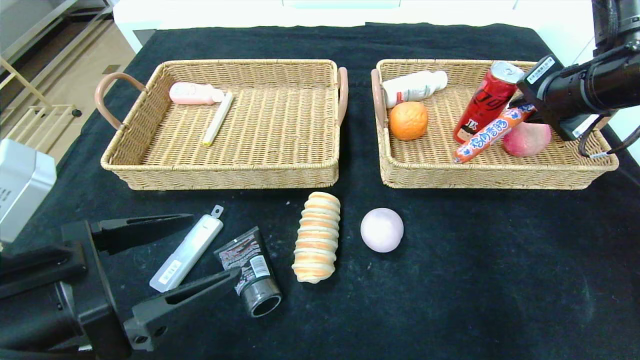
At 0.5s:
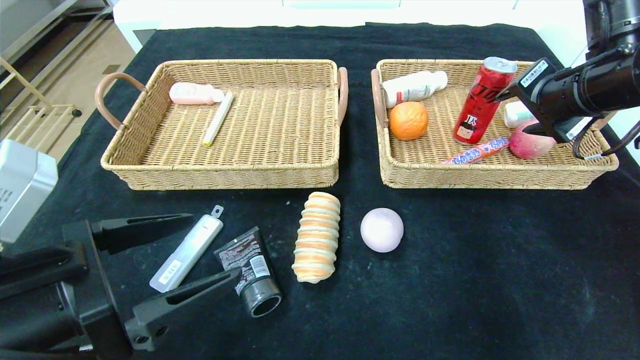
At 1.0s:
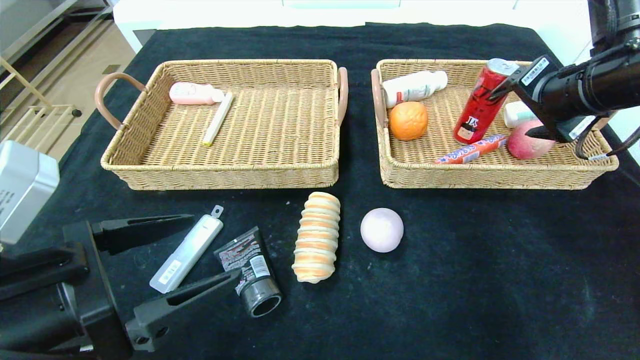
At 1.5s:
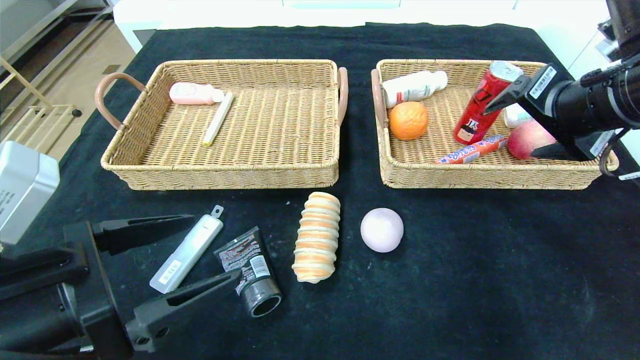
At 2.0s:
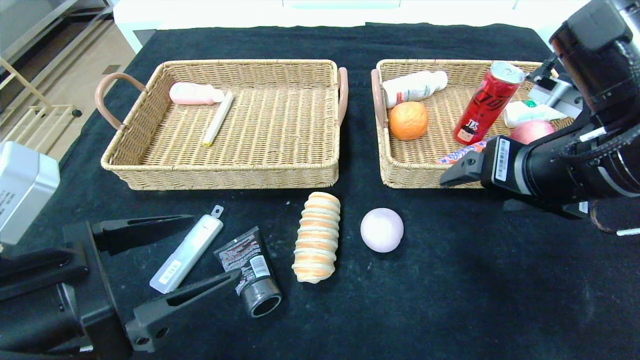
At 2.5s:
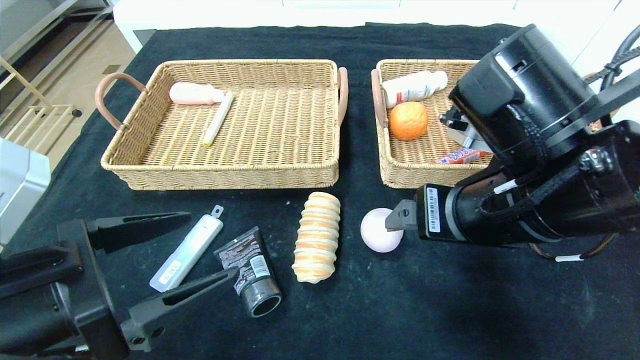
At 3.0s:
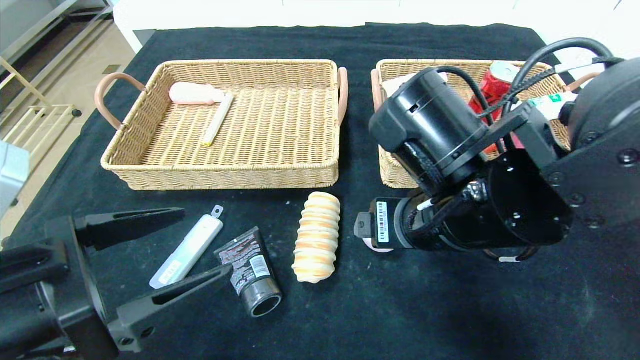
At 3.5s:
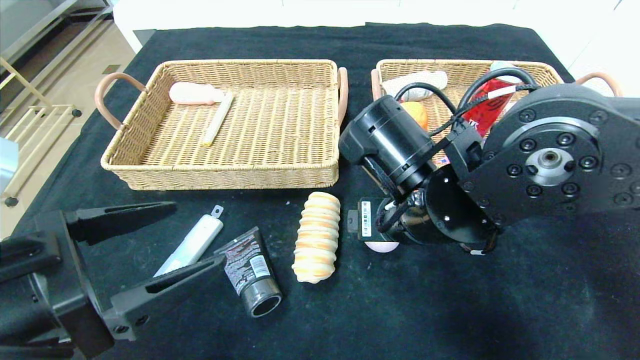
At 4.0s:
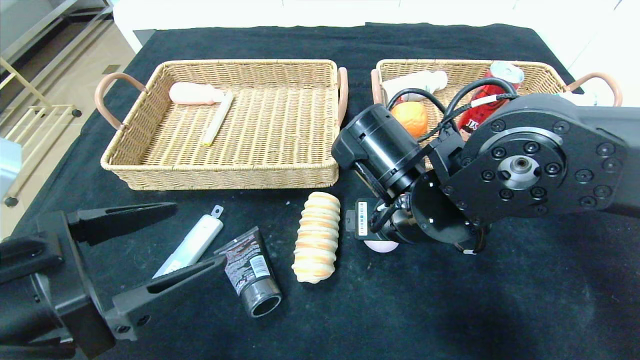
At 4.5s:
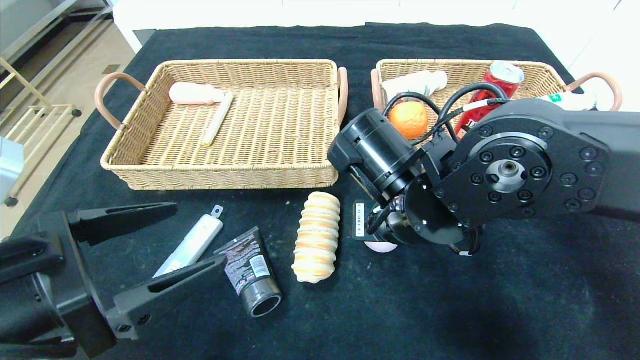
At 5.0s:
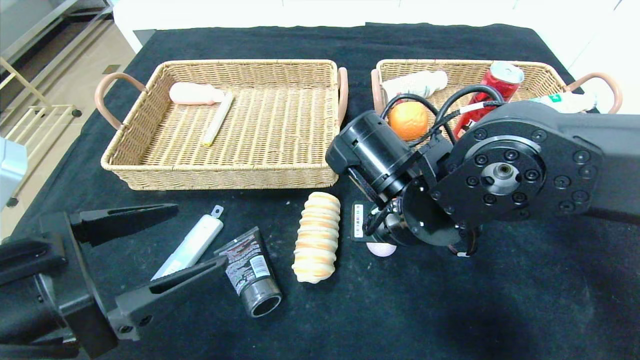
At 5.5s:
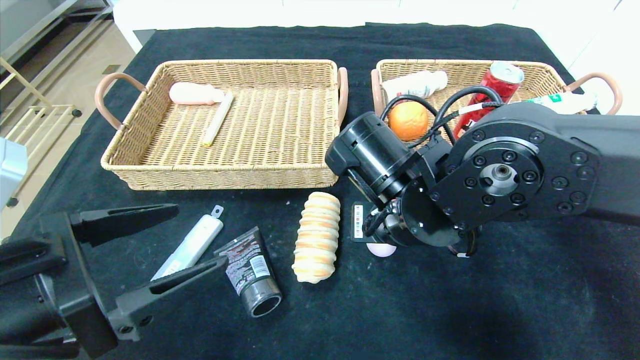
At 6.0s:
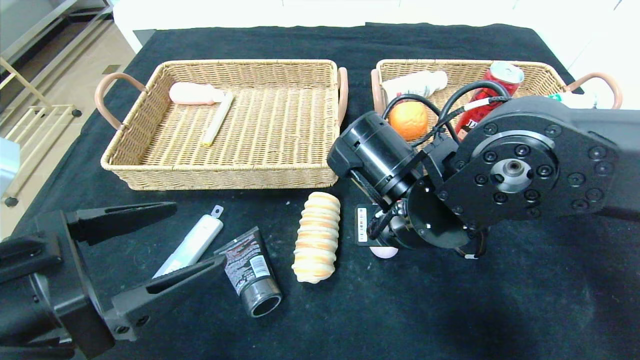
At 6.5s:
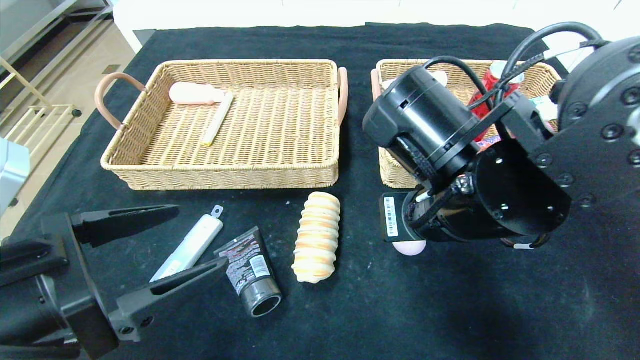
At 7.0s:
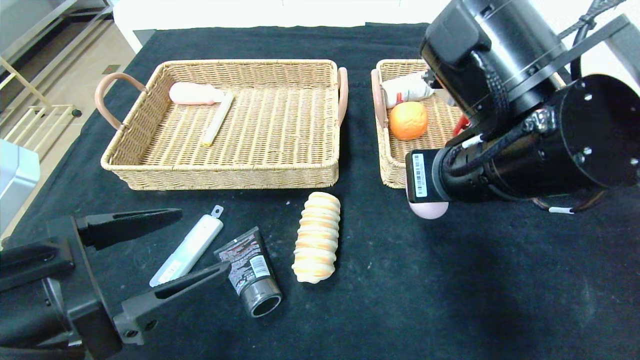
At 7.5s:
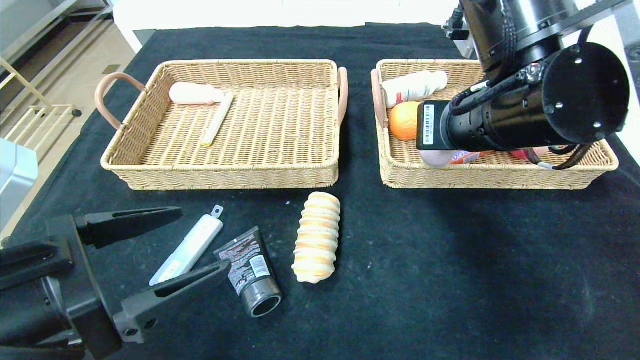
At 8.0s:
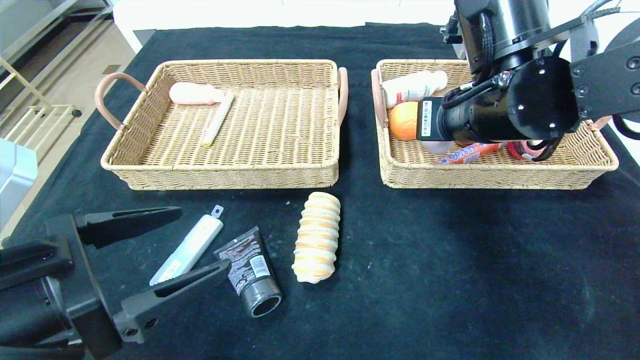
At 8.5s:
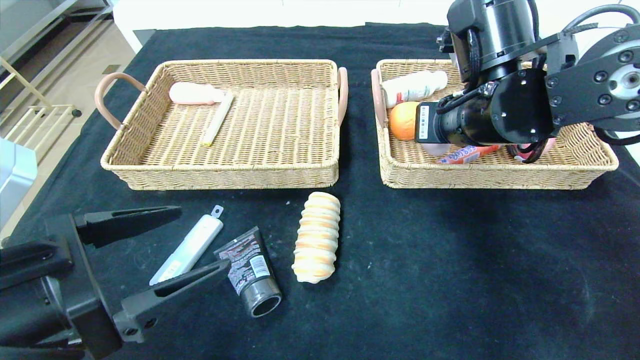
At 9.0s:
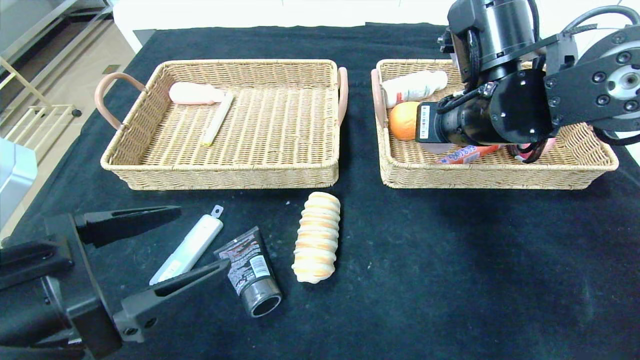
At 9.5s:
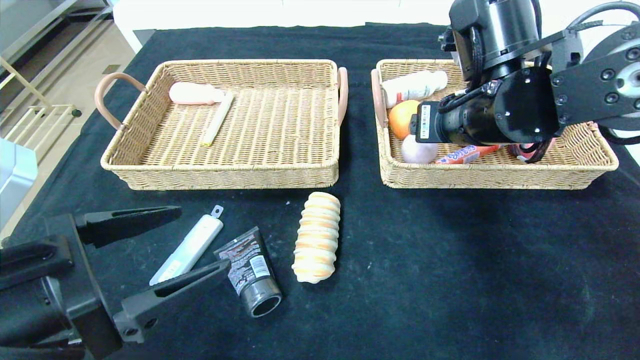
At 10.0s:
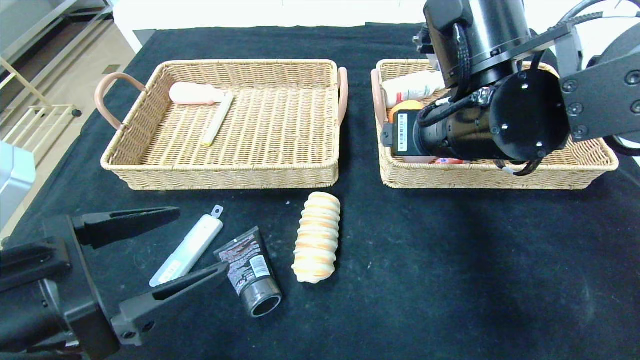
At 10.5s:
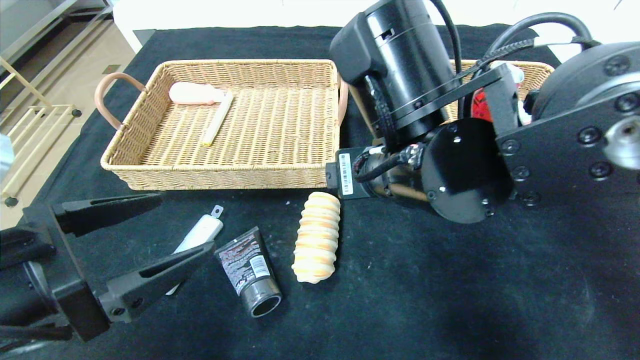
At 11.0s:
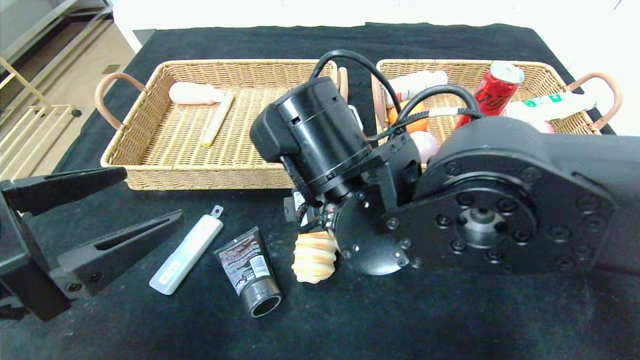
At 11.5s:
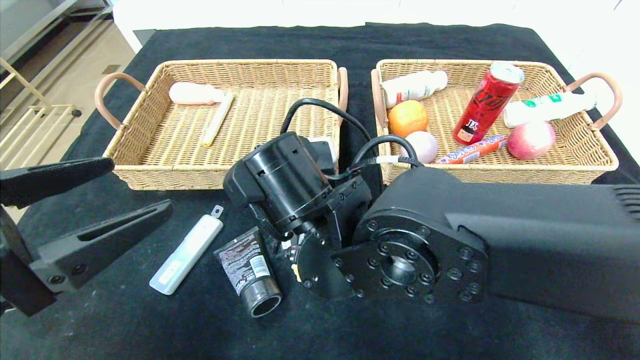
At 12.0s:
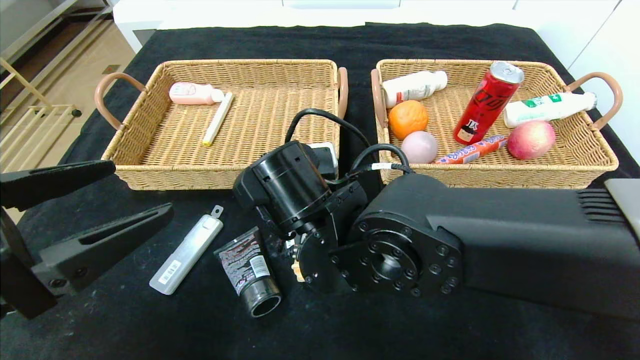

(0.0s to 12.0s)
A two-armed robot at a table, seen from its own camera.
Step, 1.0s - 9.5s: Grasp the peach and put it in the right basket.
0.0s - 2.0s: The right gripper shifts roughly 15 cm backward and to the left, and opens up.
2.0s - 4.0s: The right gripper is displaced to the left and downward by some 15 cm.
4.0s - 6.0s: The right gripper closes.
6.0s - 8.0s: The right gripper moves upward and to the right, about 10 cm.
8.0s - 10.0s: The right gripper opens up.
10.0s - 12.0s: The right gripper moves to the left and downward, roughly 15 cm.

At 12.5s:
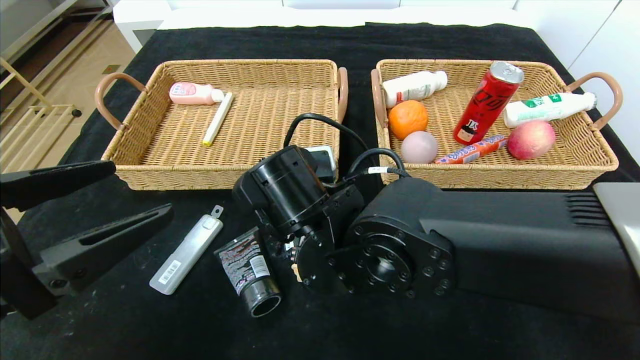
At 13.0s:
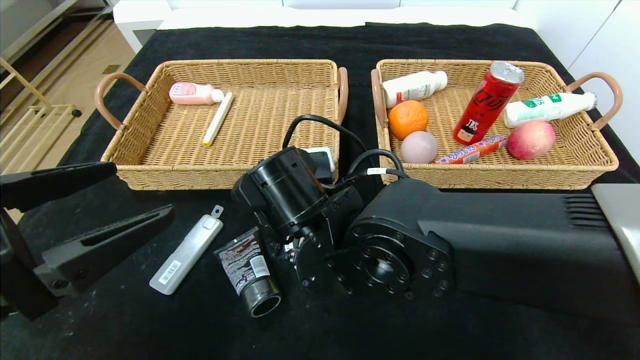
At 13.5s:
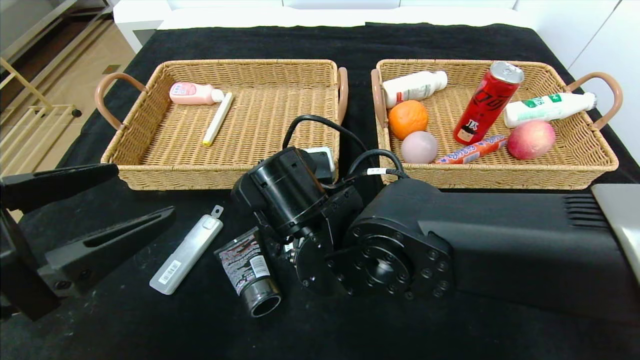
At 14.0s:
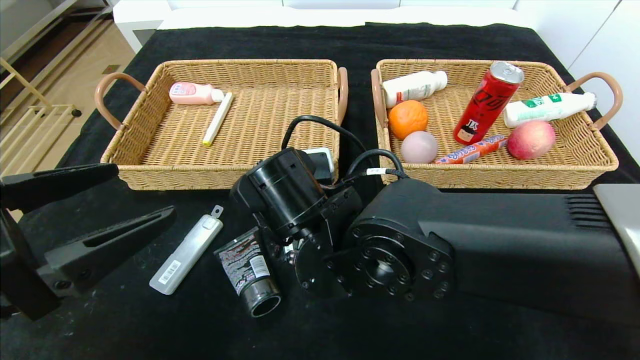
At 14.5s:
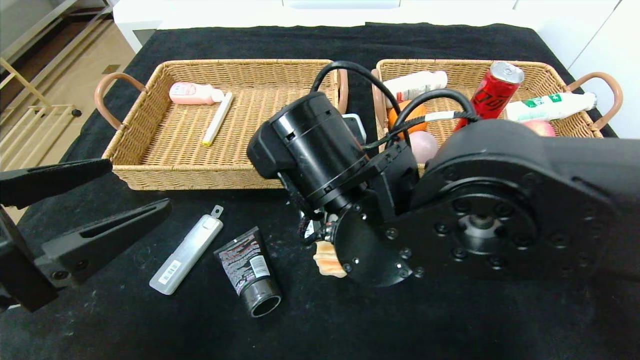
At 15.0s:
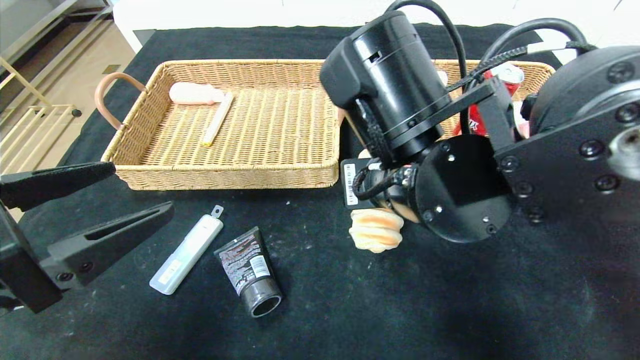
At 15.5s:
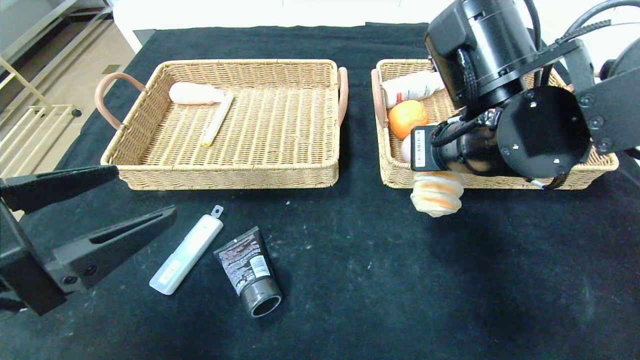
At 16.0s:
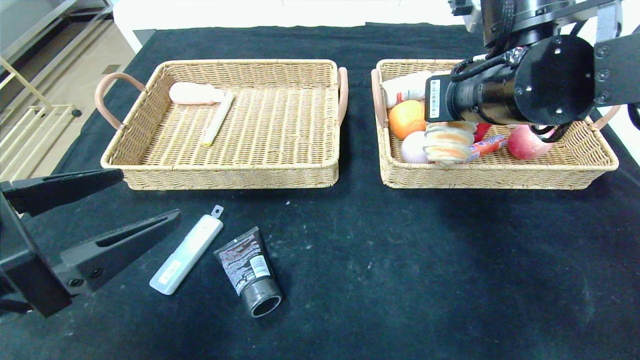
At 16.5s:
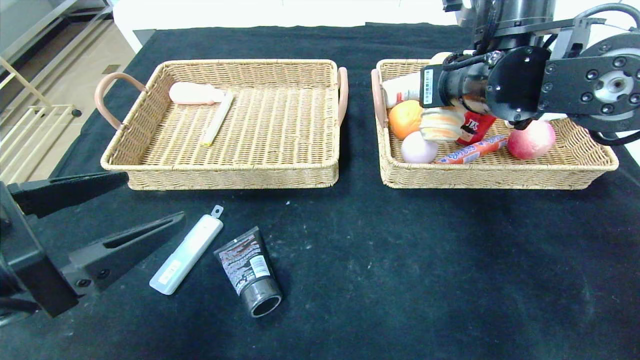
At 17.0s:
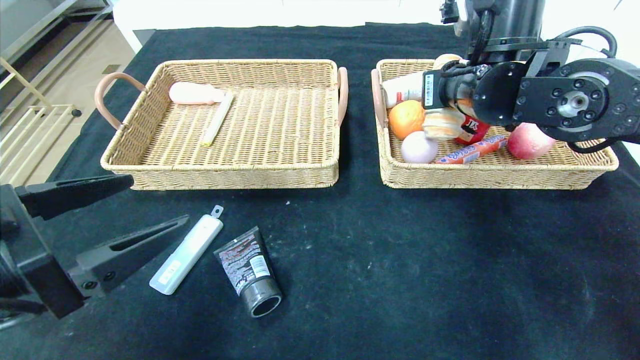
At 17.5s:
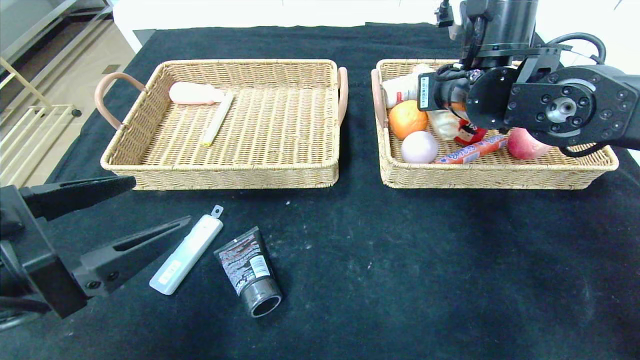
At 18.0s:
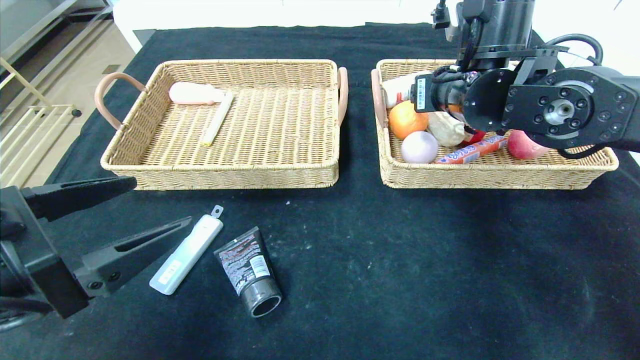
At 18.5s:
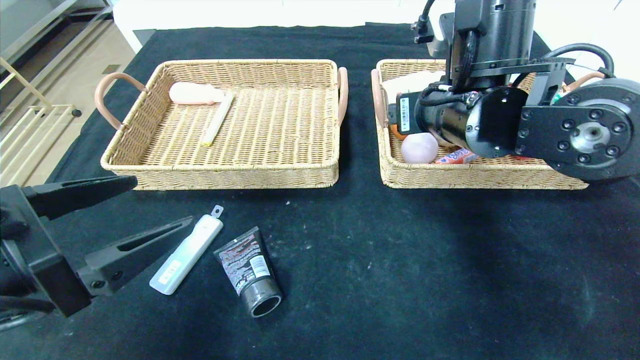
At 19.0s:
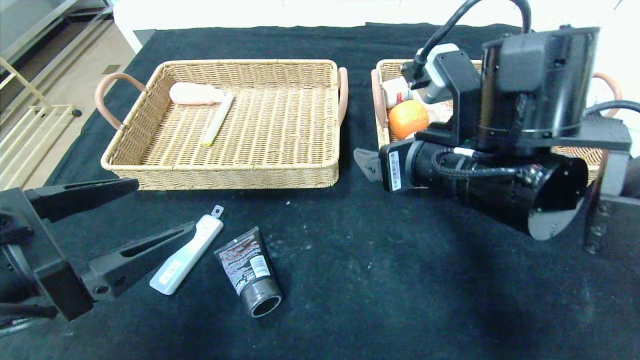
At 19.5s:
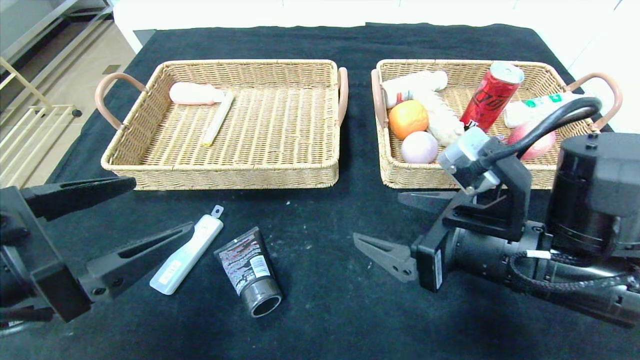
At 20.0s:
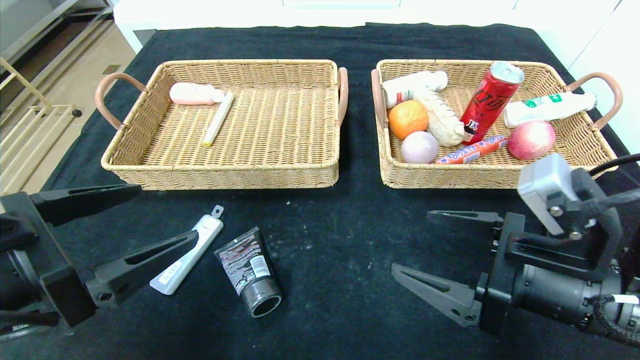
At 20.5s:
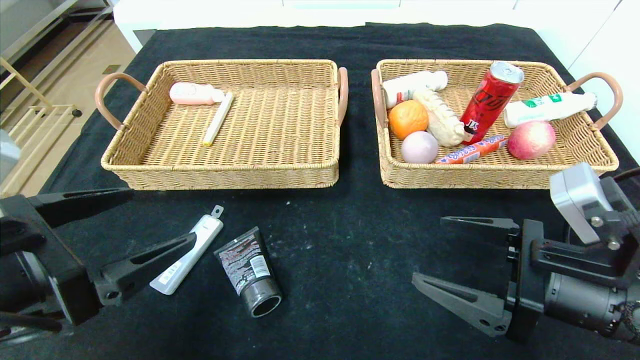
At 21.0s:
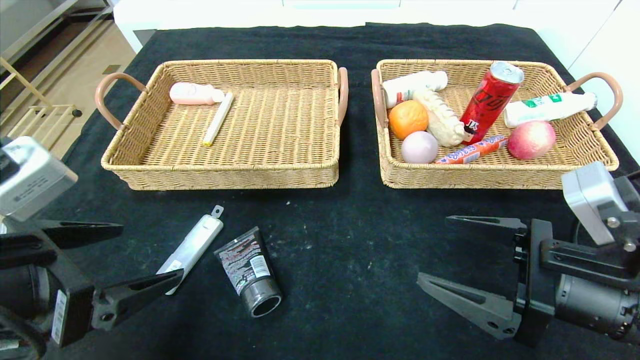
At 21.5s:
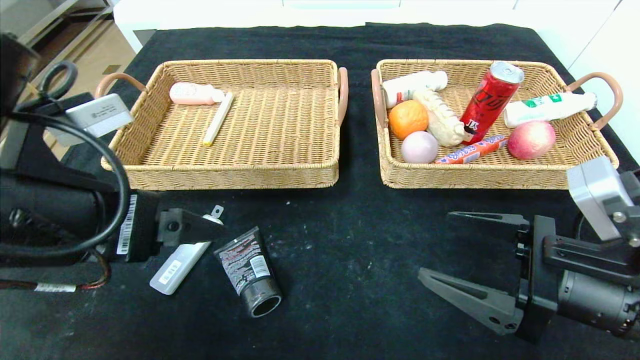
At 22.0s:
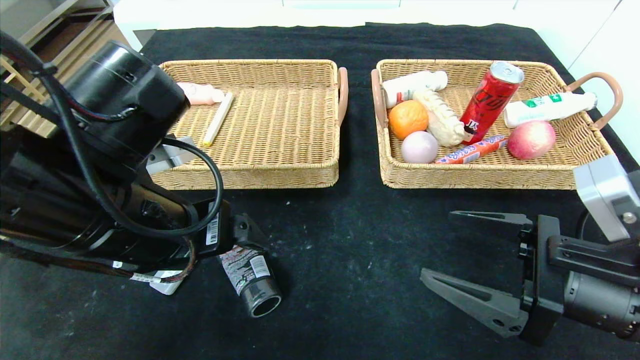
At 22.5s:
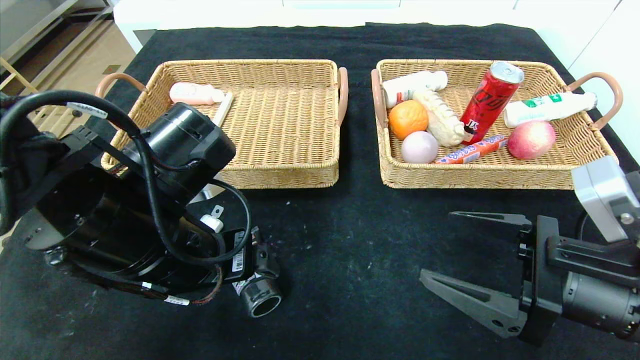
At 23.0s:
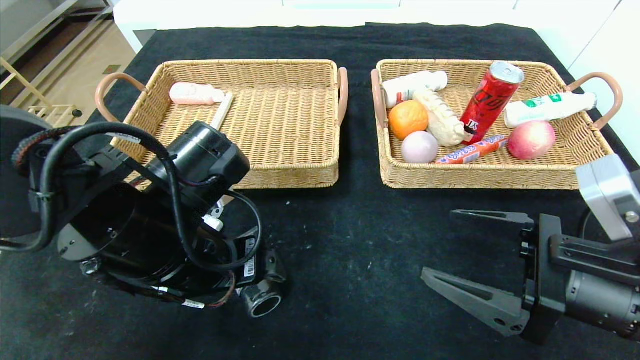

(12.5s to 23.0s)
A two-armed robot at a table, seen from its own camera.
Step, 12.5s - 18.5s: Grasp the long bread and put it in the right basket.
12.5s - 14.5s: The right gripper shifts by some 5 cm, and closes up.
14.5s - 16.5s: The right gripper shifts some 20 cm to the right, forward and upward.
16.5s - 19.0s: The right gripper goes some 10 cm backward and downward, and opens.
19.0s - 21.0s: The right gripper moves to the right, backward and downward, about 15 cm.
21.0s - 23.0s: The left gripper shifts roughly 15 cm to the right and forward.
